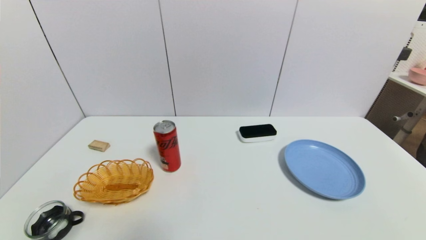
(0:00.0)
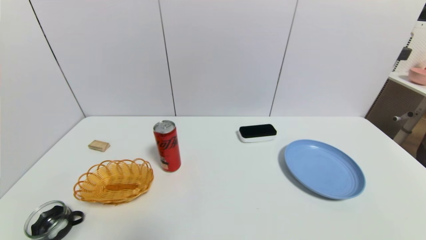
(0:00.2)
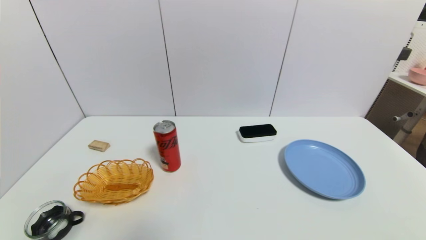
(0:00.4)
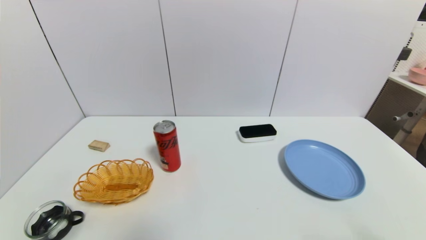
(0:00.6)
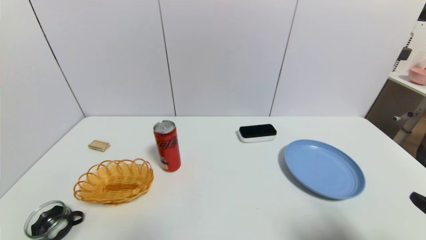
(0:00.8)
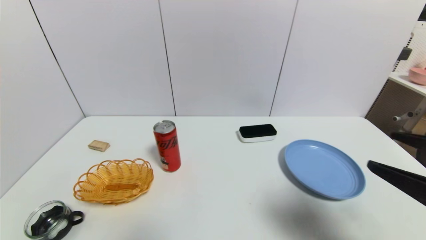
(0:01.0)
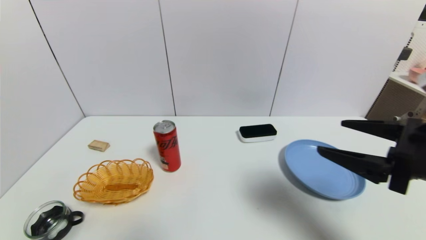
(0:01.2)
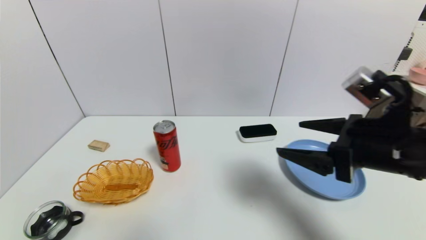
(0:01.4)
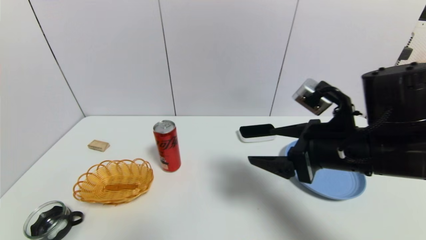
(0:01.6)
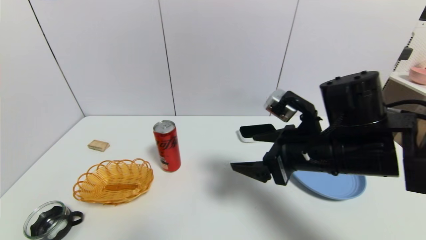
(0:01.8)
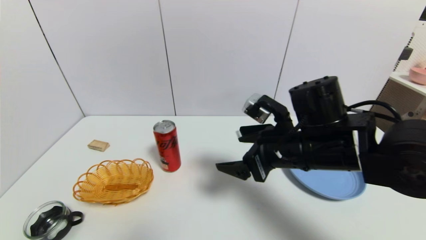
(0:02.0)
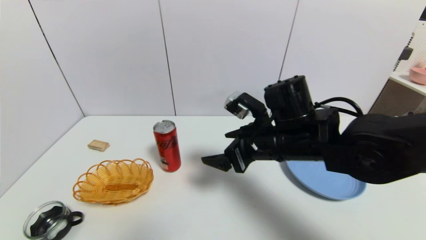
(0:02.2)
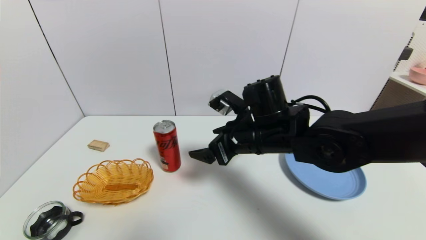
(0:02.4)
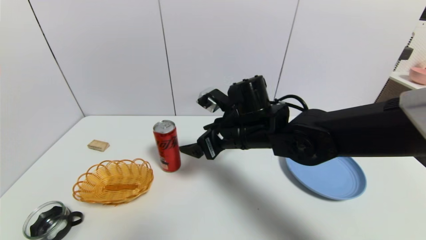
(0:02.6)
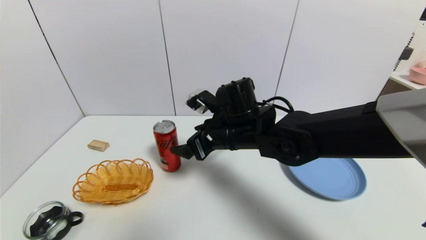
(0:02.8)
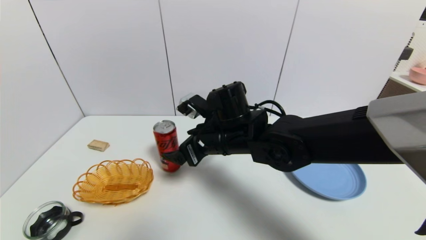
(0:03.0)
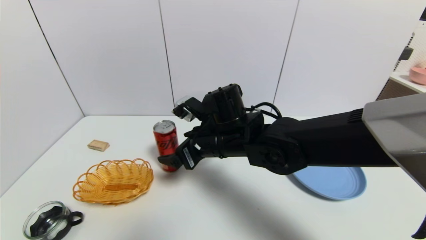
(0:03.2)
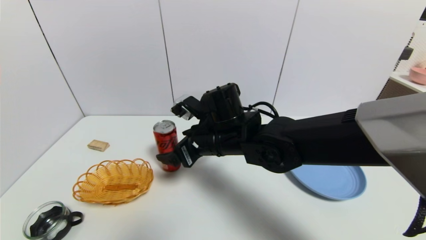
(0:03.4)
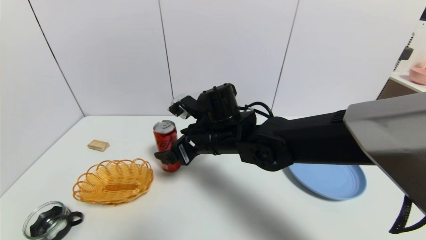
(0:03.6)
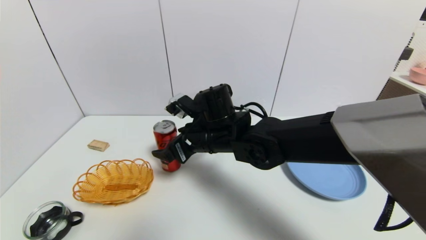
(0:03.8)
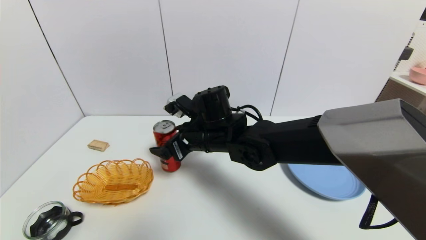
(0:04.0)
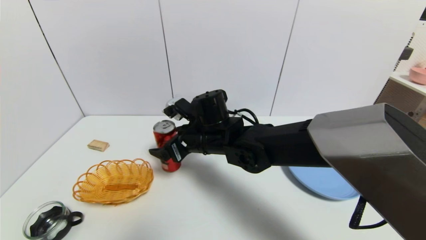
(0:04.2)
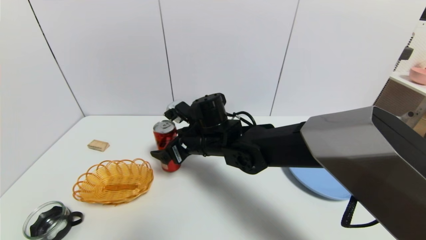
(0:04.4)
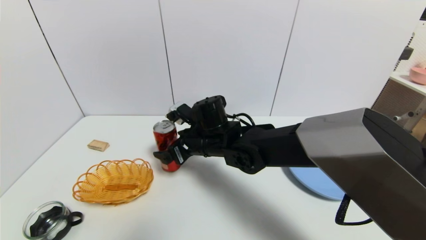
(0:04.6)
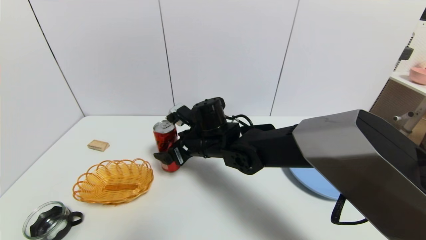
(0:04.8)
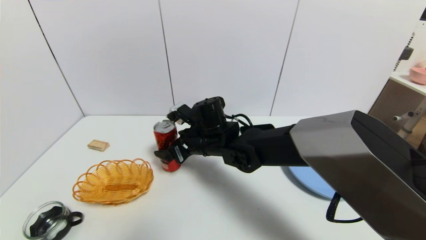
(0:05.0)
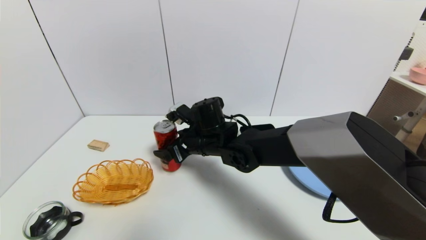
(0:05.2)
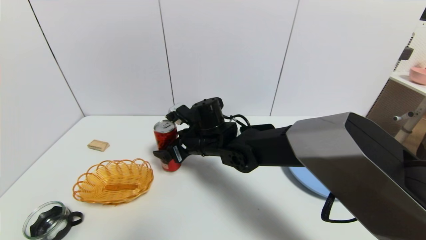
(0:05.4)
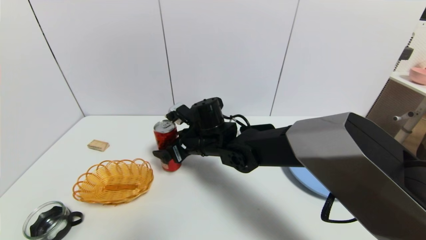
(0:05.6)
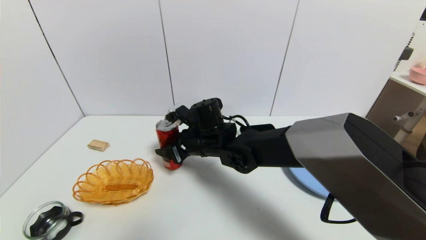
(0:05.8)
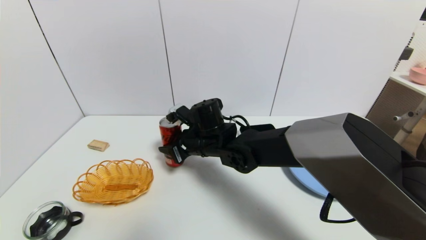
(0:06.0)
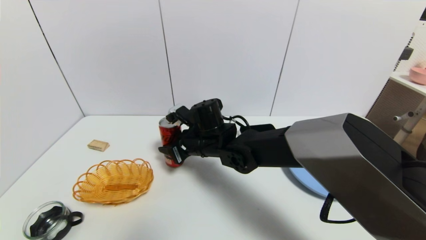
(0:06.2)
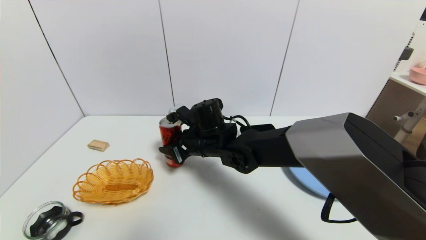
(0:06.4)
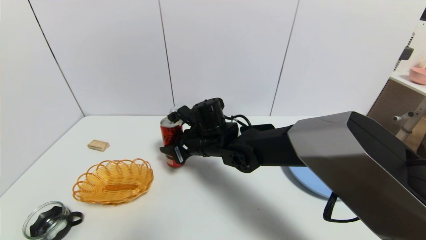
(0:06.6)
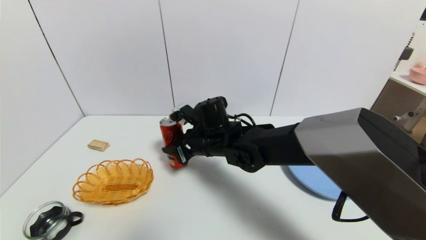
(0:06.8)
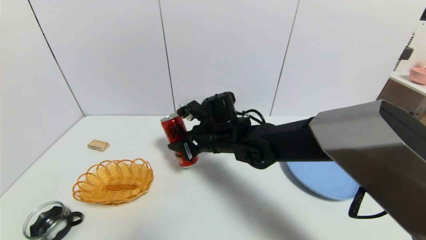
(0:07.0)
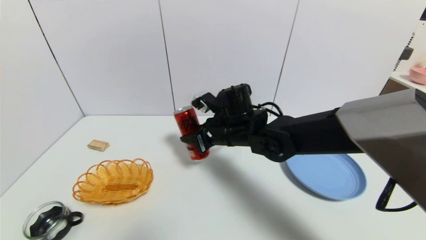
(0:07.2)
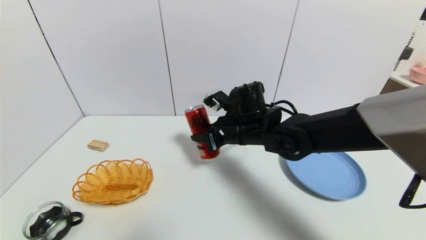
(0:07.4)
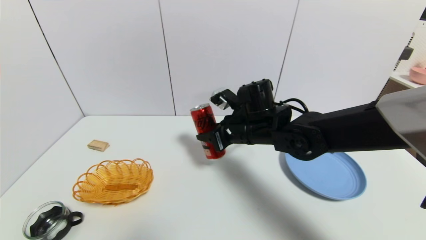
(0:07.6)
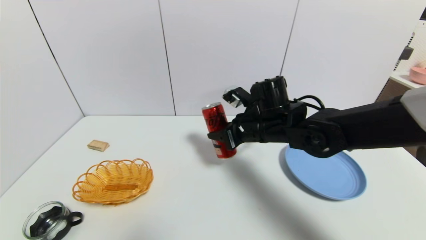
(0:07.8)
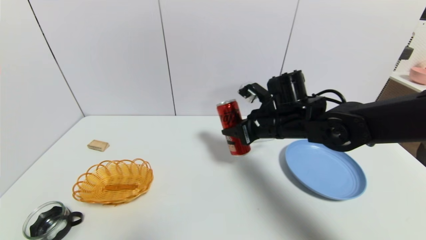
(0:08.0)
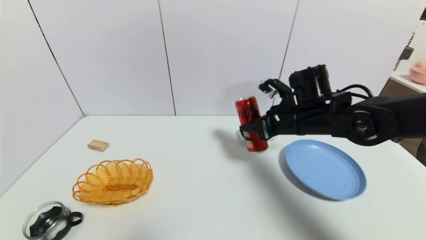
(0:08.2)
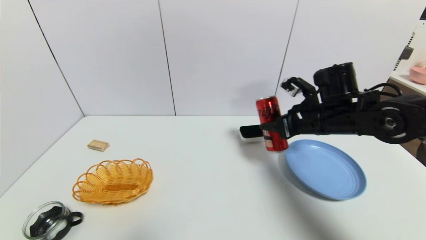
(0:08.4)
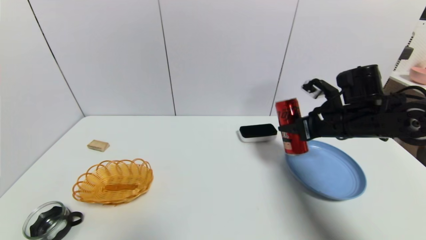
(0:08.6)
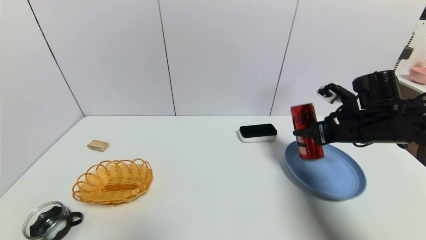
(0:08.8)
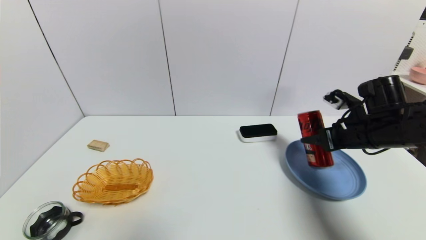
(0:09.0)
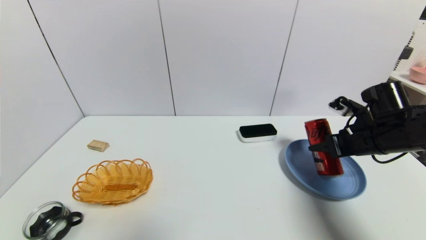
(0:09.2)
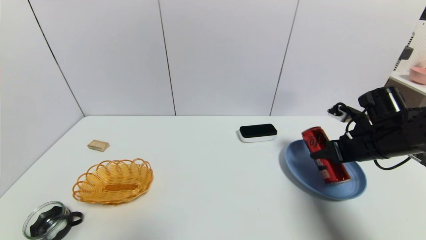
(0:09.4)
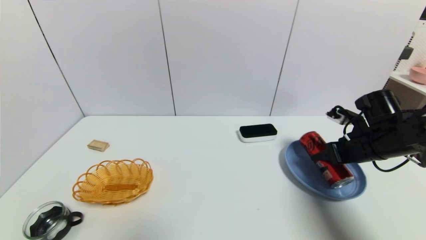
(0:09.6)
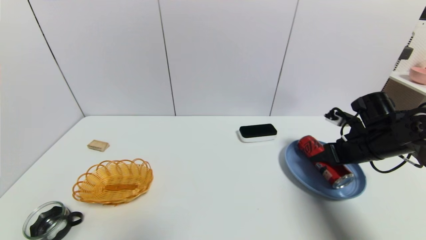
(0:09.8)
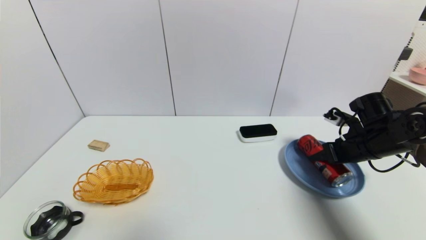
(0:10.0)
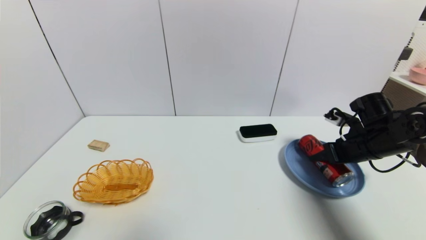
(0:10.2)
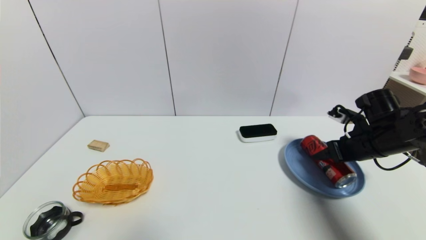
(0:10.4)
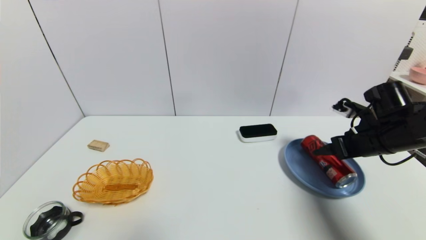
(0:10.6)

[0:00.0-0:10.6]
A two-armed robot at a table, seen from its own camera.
Task of the whole recording: use a gripper to pick the target object and place on the blue plate.
Step, 0:00.0 to 0:06.4: Grasp the coke with the right gripper.
0:00.0 to 0:01.6: The right gripper is displaced forward, to the left and upward by approximately 30 cm.
0:01.6 to 0:03.0: The right gripper goes roughly 20 cm to the left and forward.
0:03.0 to 0:04.6: The right gripper changes place by approximately 5 cm.
0:04.6 to 0:06.0: The right gripper closes up.
0:06.0 to 0:07.6: The right gripper goes about 10 cm to the right.
0:07.6 to 0:09.0: The right gripper heads to the right, covering roughly 20 cm.
0:09.0 to 0:10.6: The right gripper opens up.

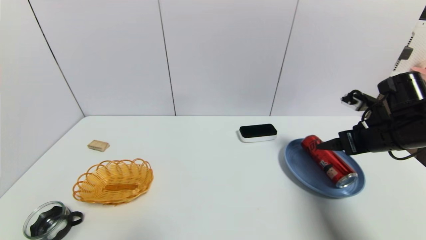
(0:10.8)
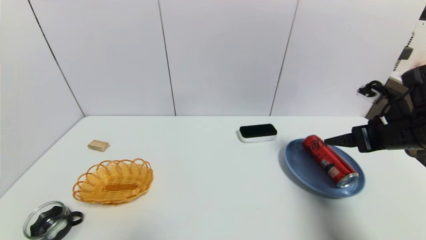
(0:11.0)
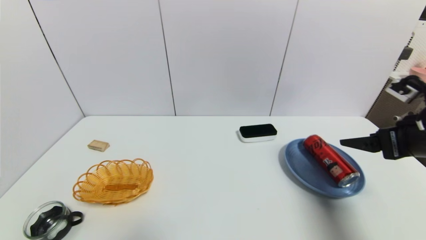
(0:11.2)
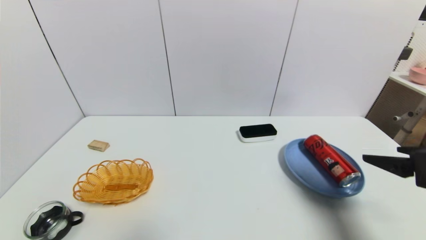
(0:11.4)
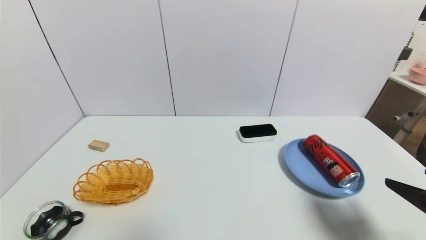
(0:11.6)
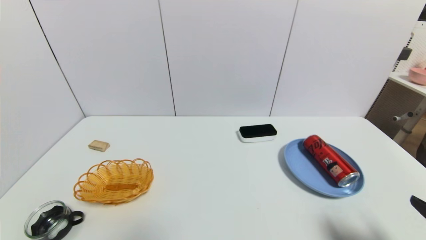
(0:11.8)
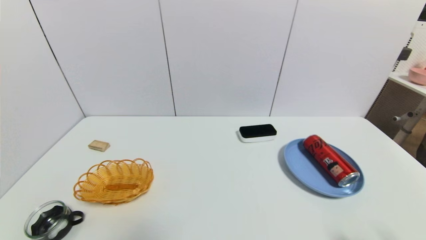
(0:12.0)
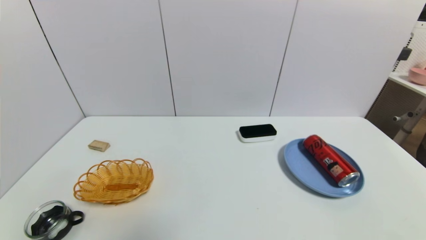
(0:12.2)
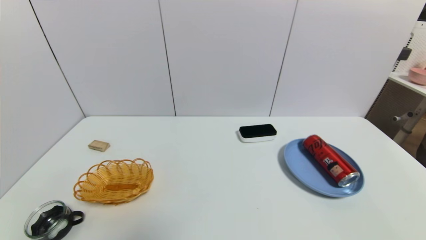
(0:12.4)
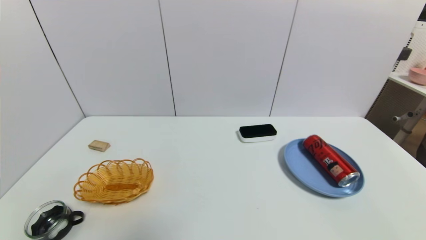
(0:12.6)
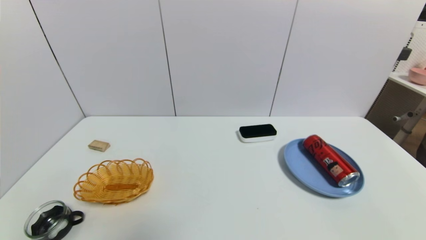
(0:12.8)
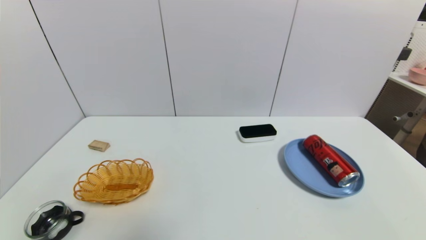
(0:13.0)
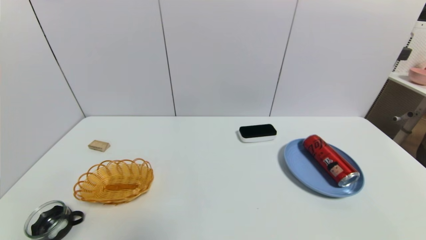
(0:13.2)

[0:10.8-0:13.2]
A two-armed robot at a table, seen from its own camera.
Task of the whole recording: use a gripper to pick the target object and place on the blue plate.
0:10.8 to 0:12.0: The right gripper shifts approximately 25 cm backward.

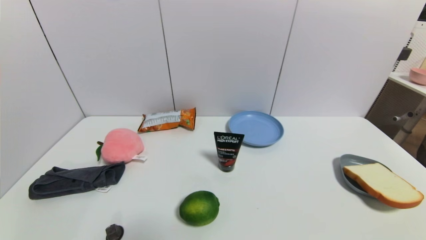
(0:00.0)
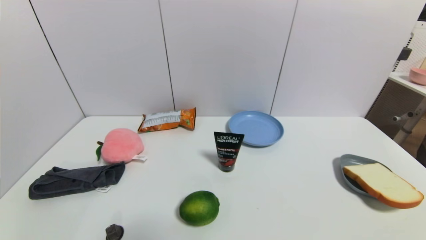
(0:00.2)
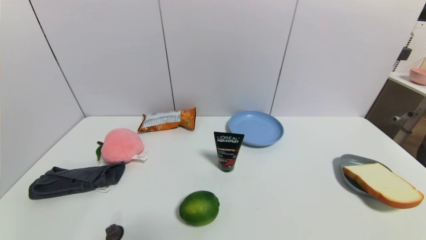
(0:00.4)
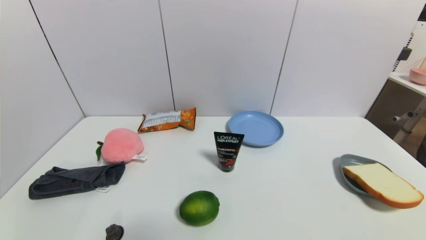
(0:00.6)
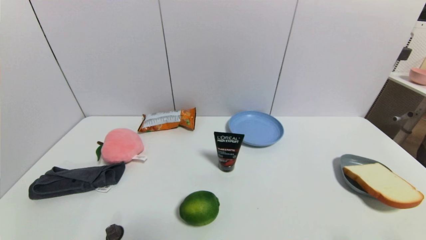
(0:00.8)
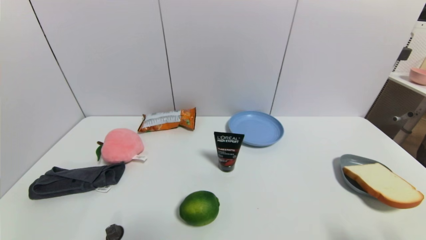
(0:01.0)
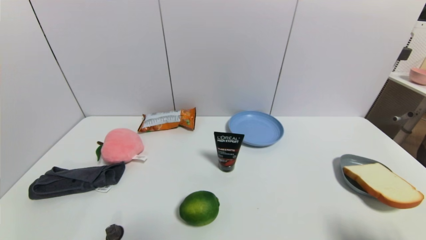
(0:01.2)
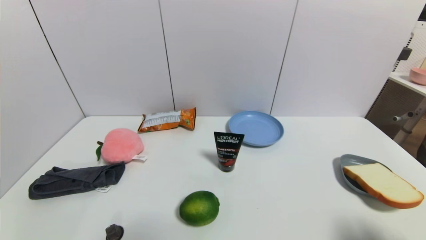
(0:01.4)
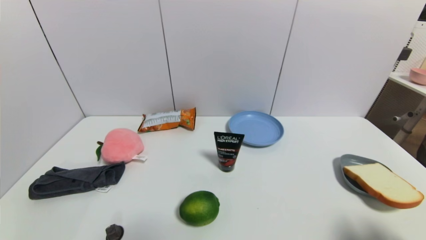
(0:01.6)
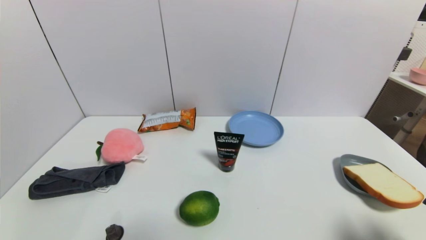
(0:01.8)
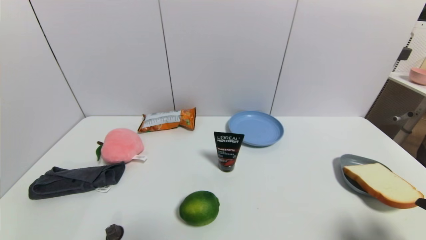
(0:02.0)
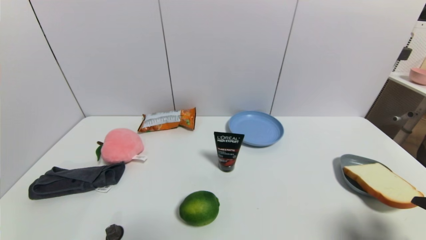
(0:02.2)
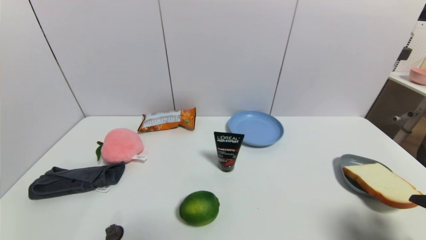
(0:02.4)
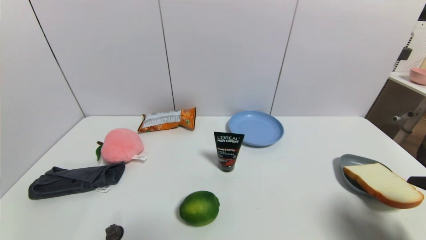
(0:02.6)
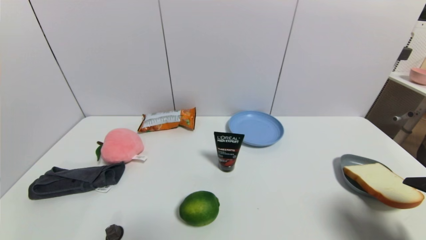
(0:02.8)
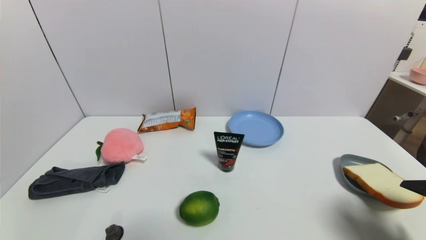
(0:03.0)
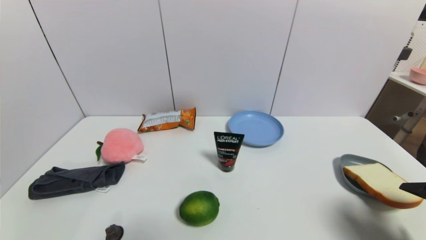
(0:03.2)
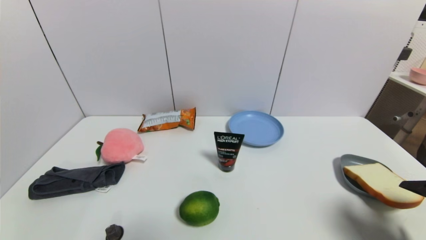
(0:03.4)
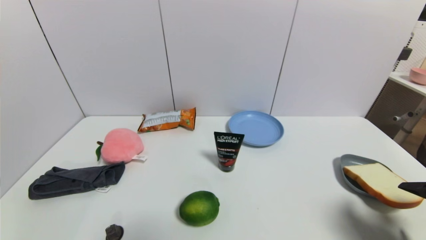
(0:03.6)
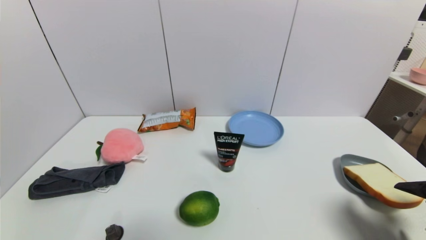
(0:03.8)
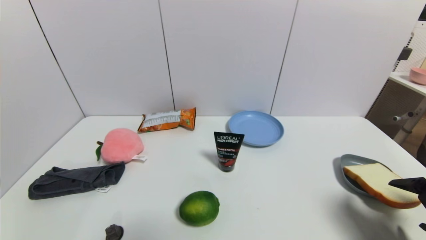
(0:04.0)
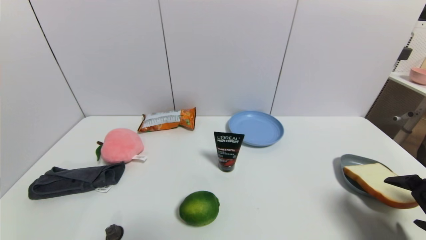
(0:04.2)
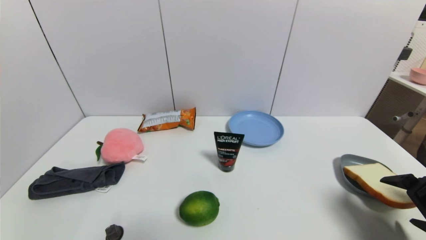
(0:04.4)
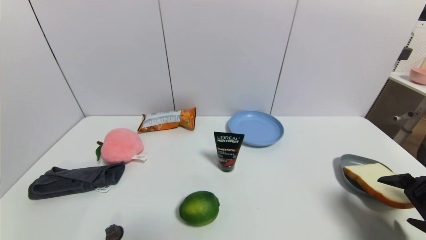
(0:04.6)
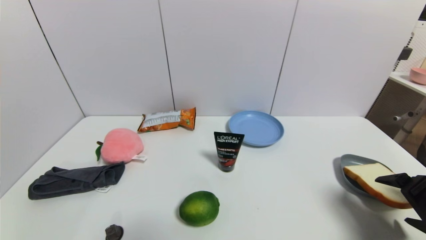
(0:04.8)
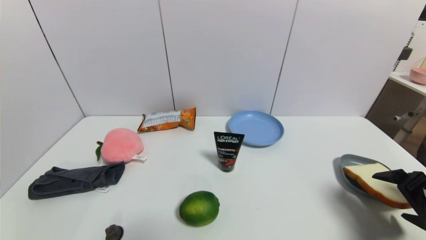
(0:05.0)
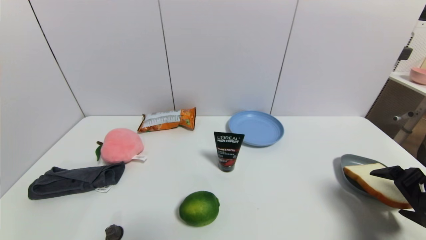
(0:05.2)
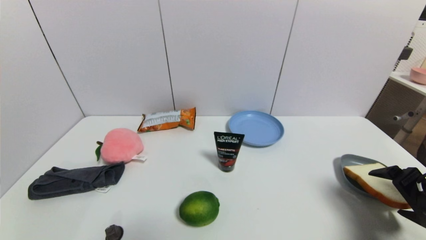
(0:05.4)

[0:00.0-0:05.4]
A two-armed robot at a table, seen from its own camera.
Task of the whole recording: use a gripper to pick the target object and place on the blue plate.
0:00.0 to 0:01.4: The right gripper heads upward and forward, covering approximately 15 cm.
0:01.4 to 0:02.8: The right gripper moves forward, some 5 cm.
0:02.8 to 0:04.0: The grippers stay close to where they were, moving slightly.
0:04.0 to 0:05.4: The grippers stay close to where they were, moving slightly.
